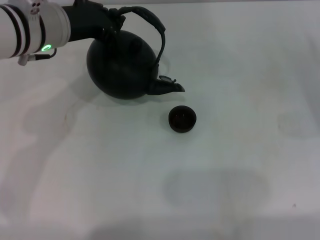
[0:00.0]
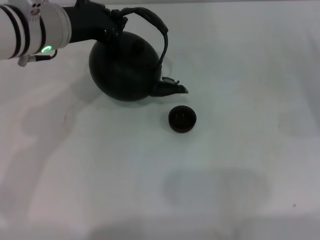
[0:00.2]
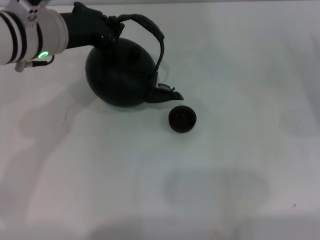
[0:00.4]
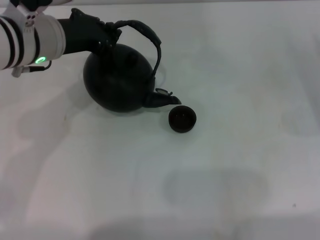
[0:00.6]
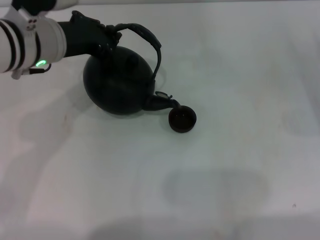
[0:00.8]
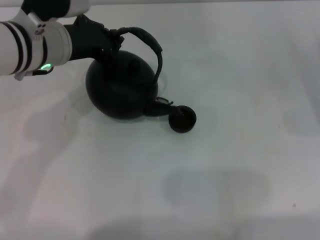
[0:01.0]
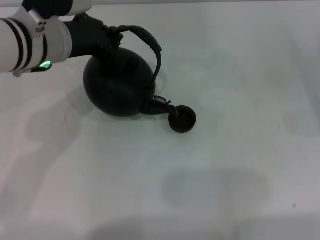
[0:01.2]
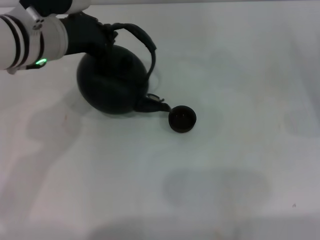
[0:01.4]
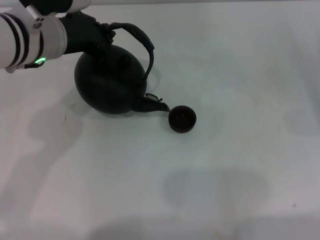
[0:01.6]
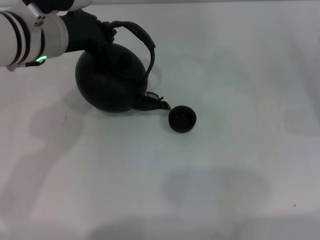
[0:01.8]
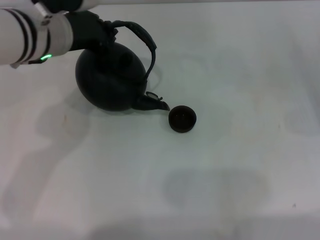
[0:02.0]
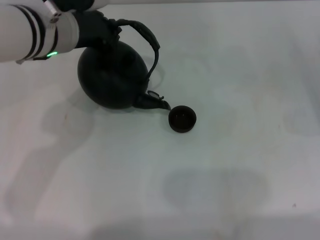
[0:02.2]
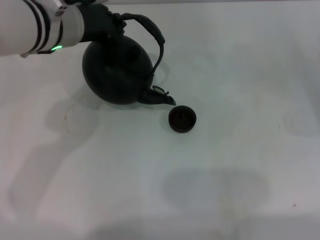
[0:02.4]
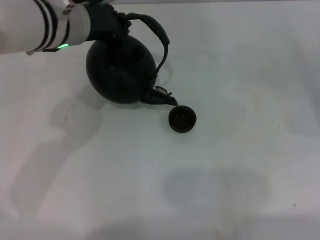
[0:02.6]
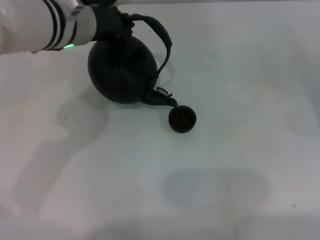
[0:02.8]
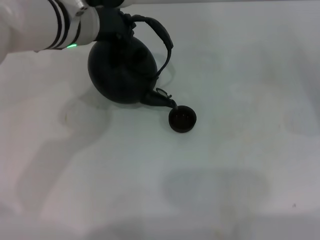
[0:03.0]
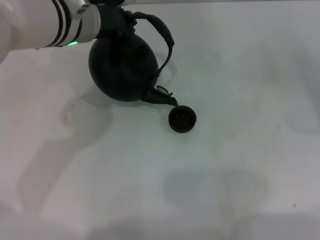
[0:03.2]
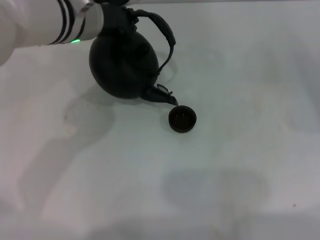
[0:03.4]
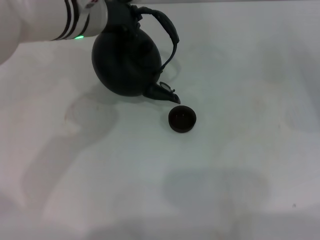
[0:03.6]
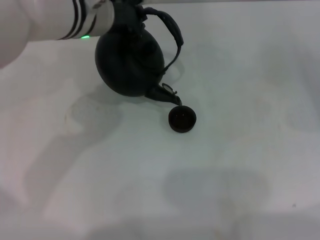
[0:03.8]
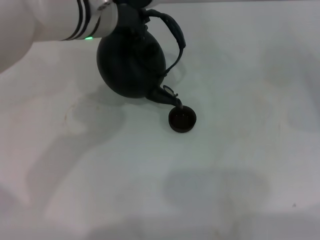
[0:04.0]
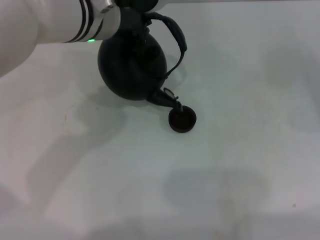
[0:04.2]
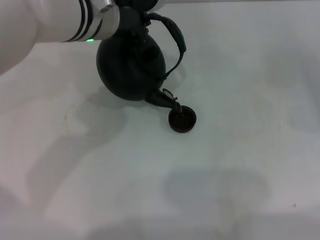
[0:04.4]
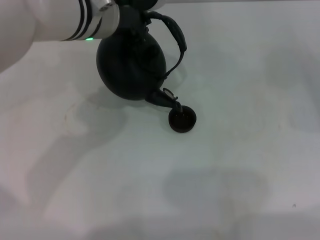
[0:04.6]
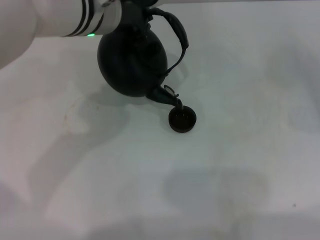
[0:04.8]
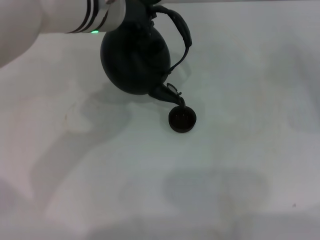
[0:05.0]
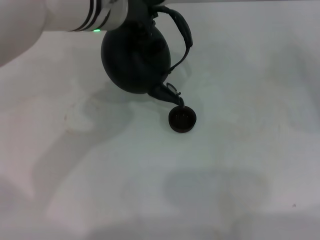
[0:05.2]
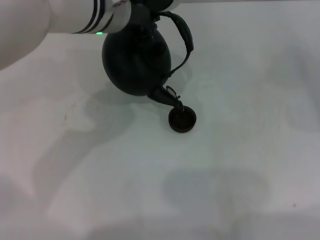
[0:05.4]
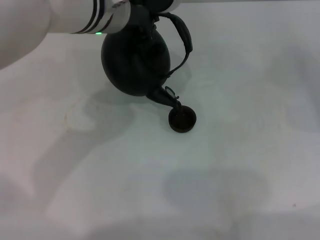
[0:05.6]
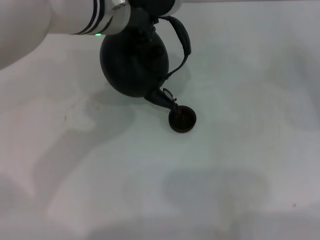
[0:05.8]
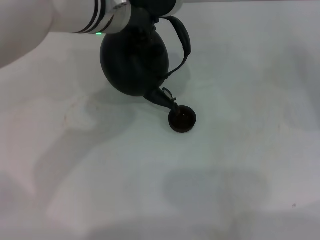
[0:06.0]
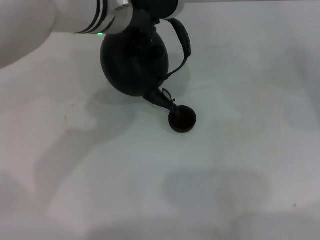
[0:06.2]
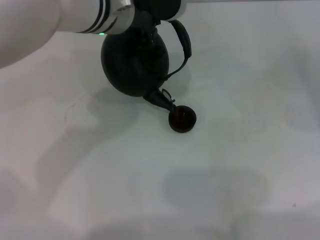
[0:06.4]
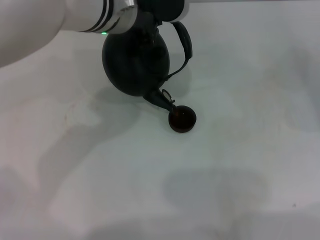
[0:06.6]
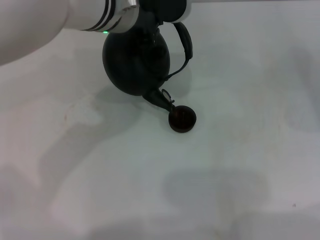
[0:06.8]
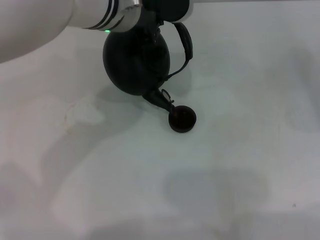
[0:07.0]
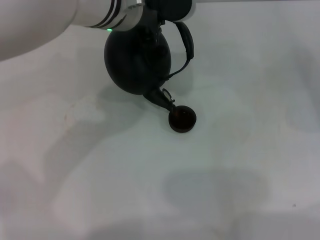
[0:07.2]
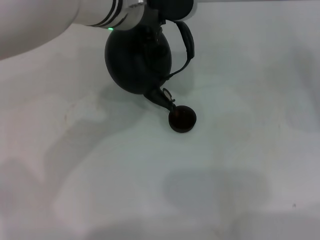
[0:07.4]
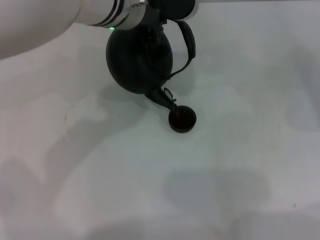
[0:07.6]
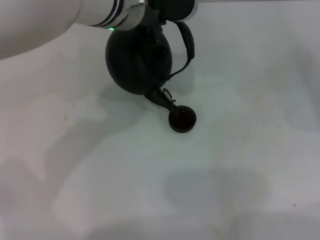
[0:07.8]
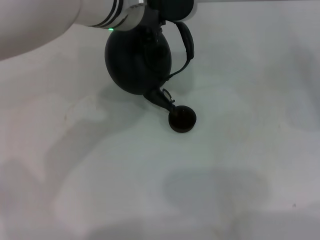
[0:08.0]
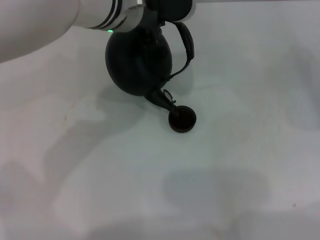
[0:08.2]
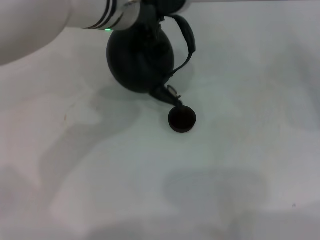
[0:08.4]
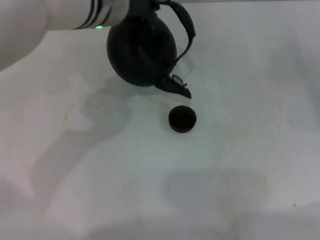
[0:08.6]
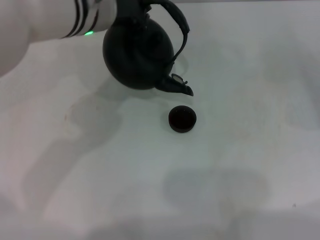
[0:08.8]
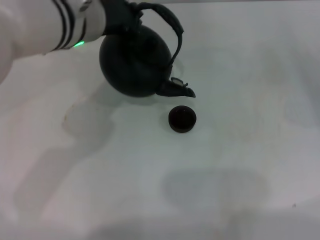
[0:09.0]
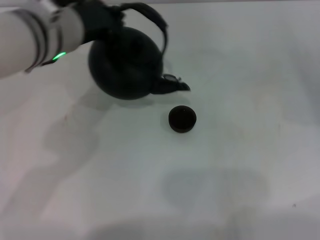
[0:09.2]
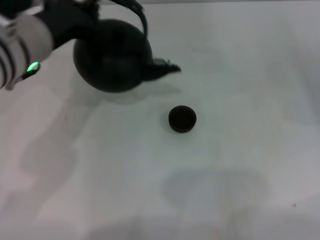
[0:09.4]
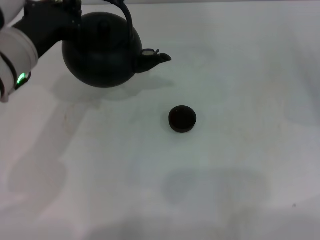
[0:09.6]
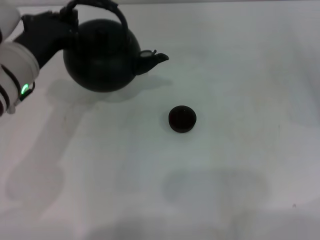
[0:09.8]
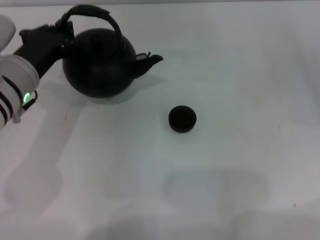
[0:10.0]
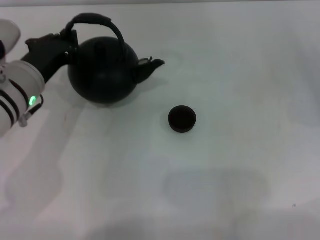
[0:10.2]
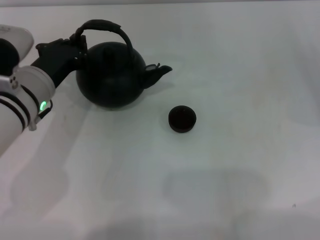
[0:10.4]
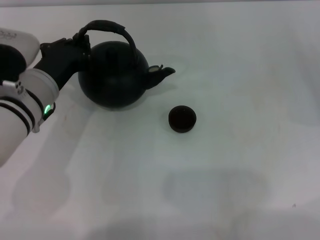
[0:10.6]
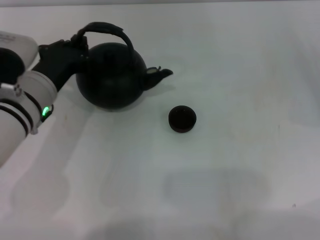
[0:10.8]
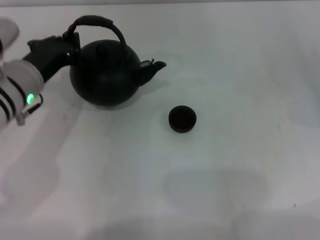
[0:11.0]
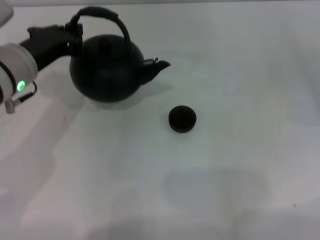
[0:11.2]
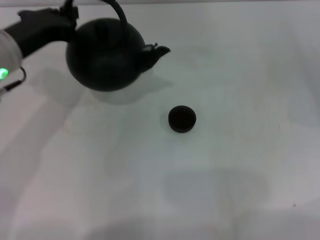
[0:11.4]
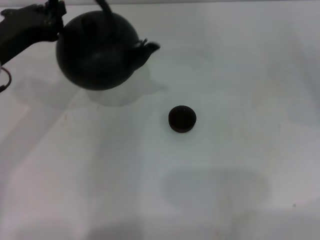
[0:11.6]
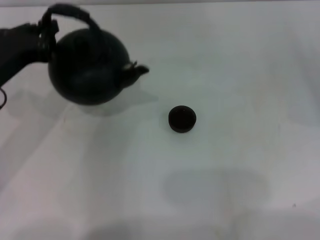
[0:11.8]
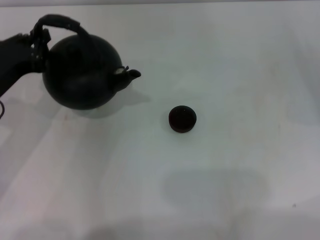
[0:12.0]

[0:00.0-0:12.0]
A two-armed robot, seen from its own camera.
Task of the whole recording: Grasp the handle of the teapot with one hand and pour tea into the teacup.
Step, 0:00.0 to 0:08.4: Pour tea into the teacup with the left gripper.
0:00.0 to 0:01.6: The grippers stay close to where they were, moving slightly.
0:01.6 to 0:03.0: The grippers make only small movements.
0:03.0 to 0:06.0: There are only small adjustments of the grippers.
0:06.0 to 0:07.6: The grippers stay close to where they were, moving slightly.
0:07.6 to 0:09.0: The left gripper is displaced to the left by approximately 5 cm.
0:09.0 to 0:10.4: The left gripper moves downward and to the left, some 15 cm.
0:10.4 to 0:12.0: The left gripper goes roughly 5 cm to the left.

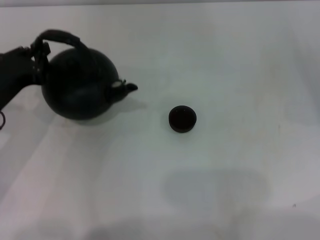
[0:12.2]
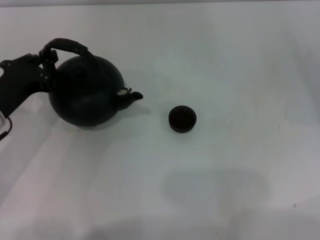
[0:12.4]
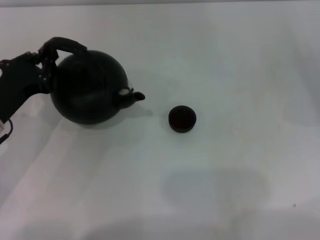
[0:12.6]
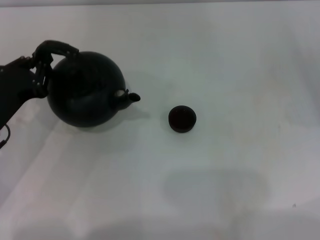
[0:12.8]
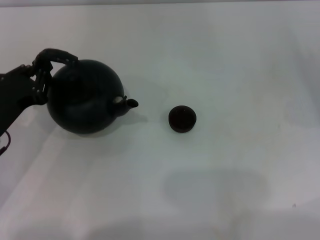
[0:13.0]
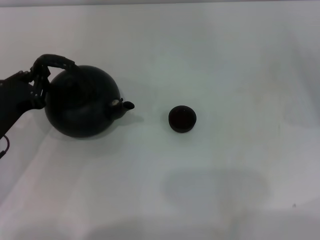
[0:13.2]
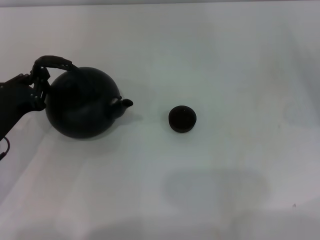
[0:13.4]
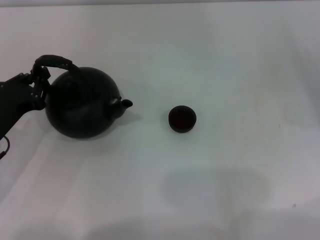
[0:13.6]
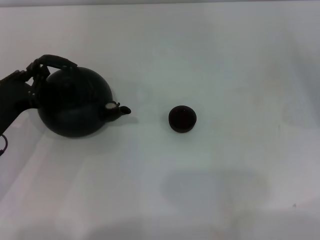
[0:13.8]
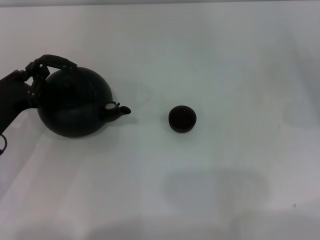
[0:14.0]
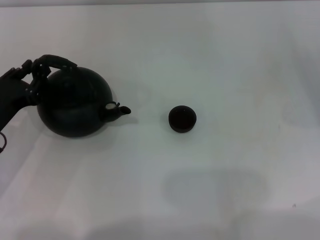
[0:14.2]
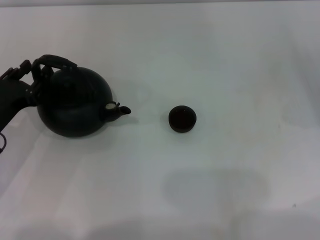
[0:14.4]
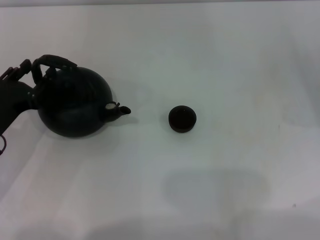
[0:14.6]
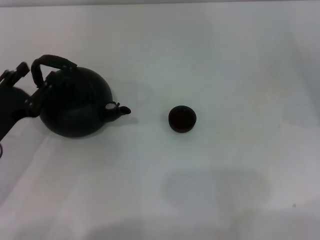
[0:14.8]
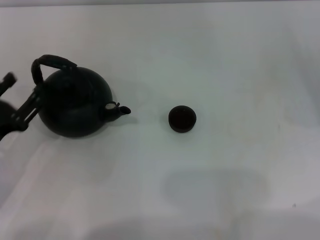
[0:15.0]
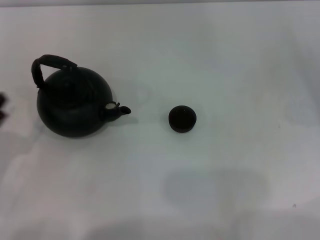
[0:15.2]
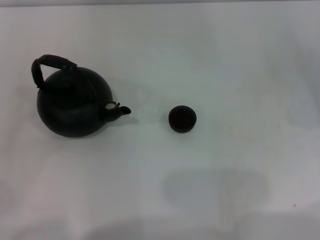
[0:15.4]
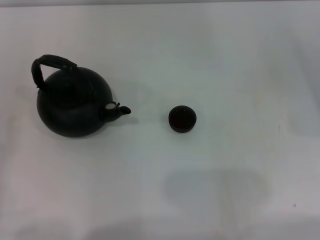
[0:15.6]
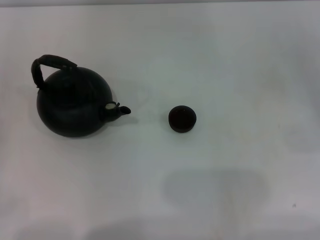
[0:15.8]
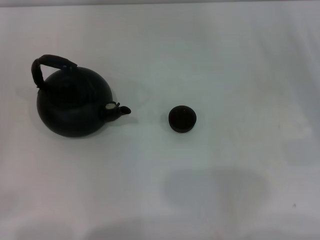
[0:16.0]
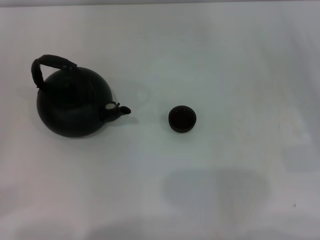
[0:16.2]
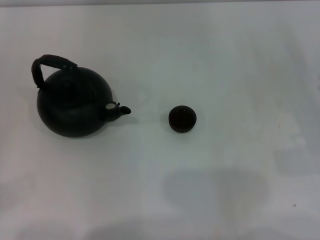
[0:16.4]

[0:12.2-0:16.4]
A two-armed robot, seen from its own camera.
Task of the whole recording: Grasp the handle of the teapot with one hand and pour tea into the teacup.
Step, 0:12.2 to 0:15.0: Put down the teapot with the left gripper.
0:12.2 to 0:13.6: The left gripper moves roughly 5 cm.
0:13.6 to 0:15.0: The left gripper opens up.
0:15.0 to 0:16.4: The left gripper moves to the left, about 10 cm.
